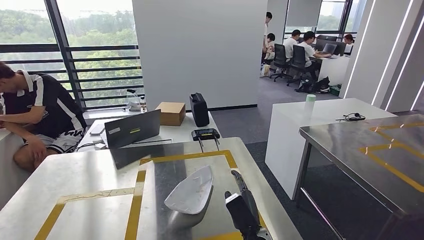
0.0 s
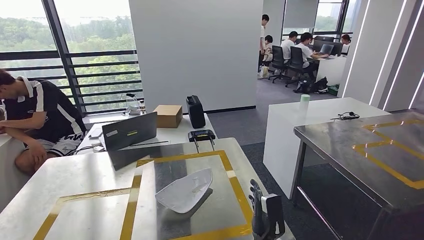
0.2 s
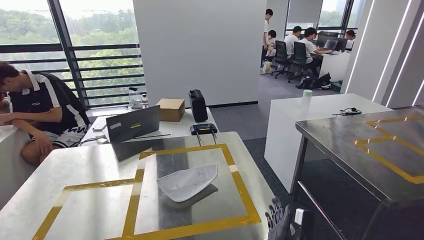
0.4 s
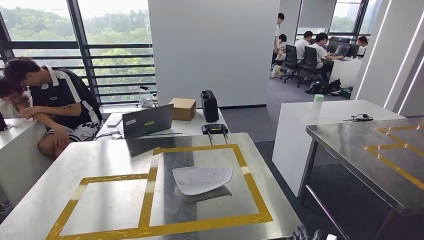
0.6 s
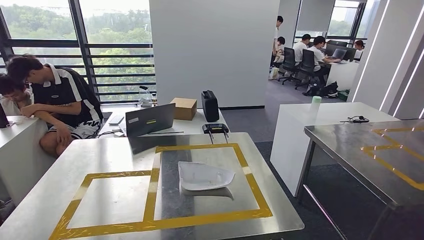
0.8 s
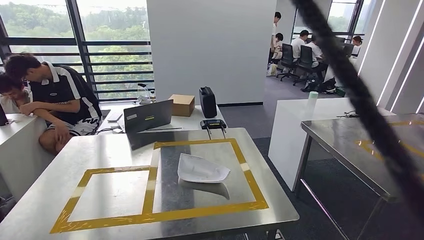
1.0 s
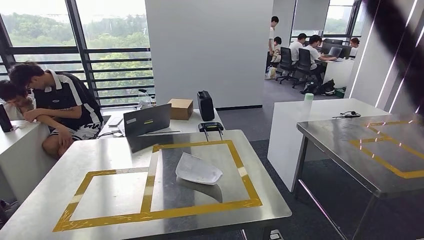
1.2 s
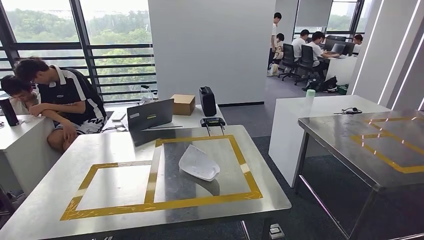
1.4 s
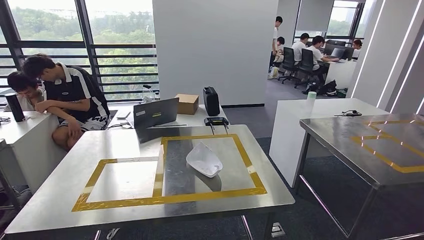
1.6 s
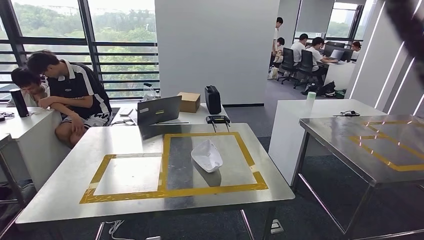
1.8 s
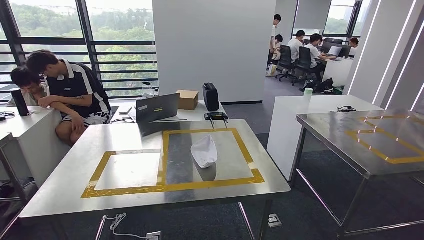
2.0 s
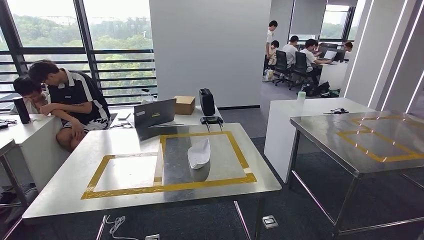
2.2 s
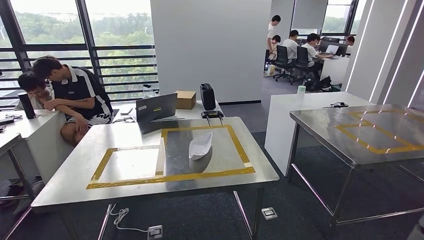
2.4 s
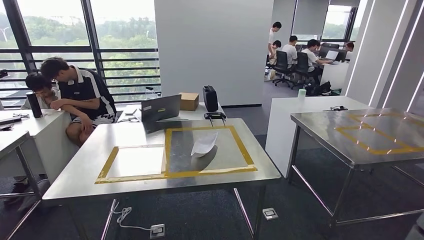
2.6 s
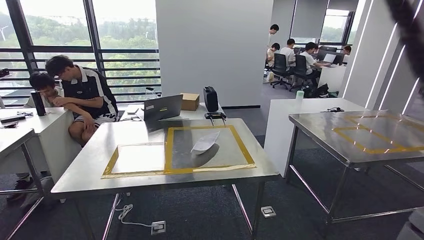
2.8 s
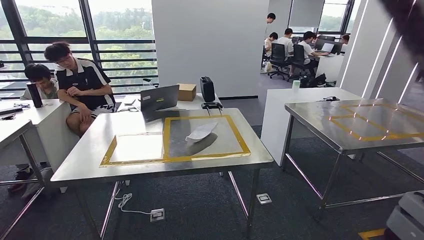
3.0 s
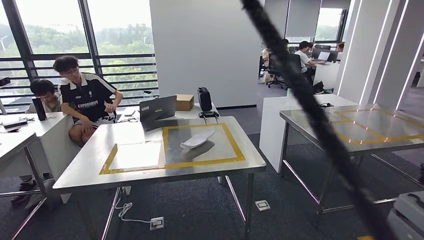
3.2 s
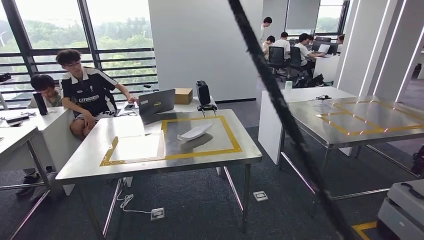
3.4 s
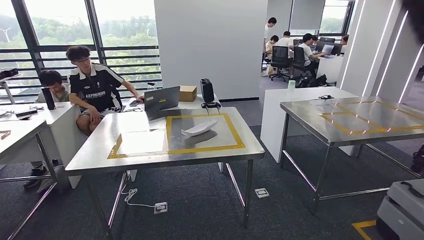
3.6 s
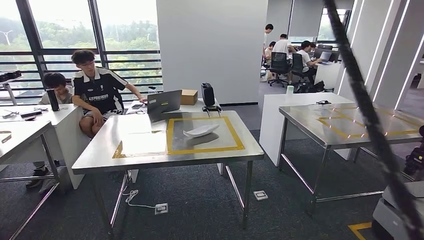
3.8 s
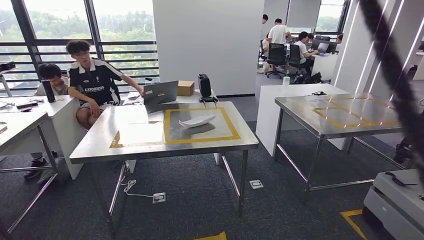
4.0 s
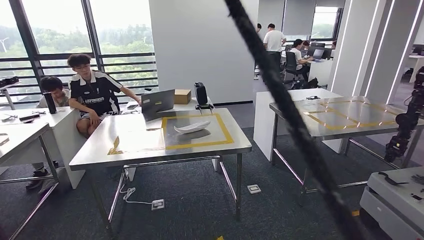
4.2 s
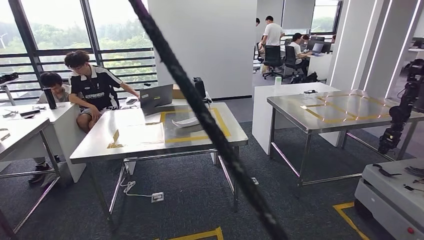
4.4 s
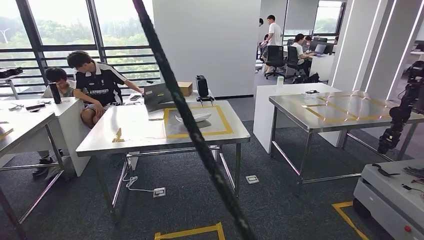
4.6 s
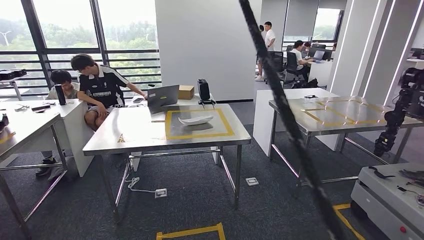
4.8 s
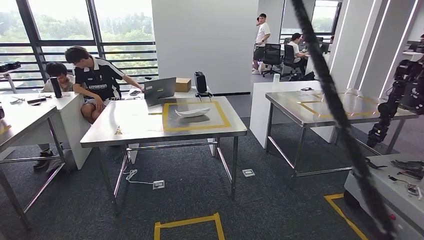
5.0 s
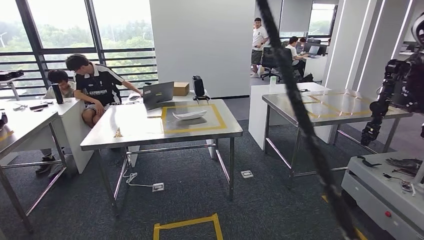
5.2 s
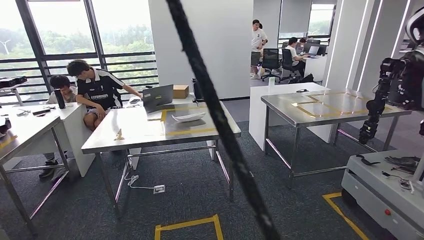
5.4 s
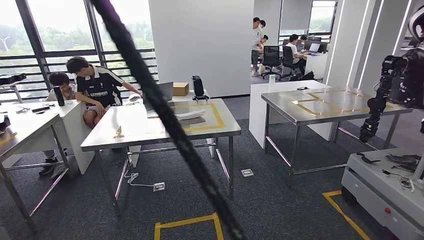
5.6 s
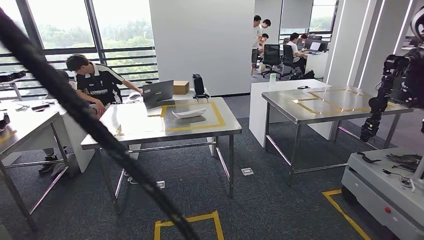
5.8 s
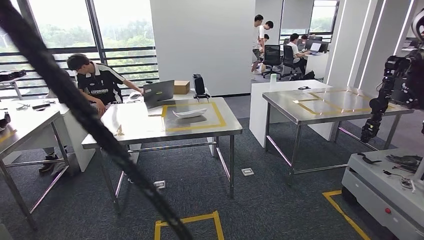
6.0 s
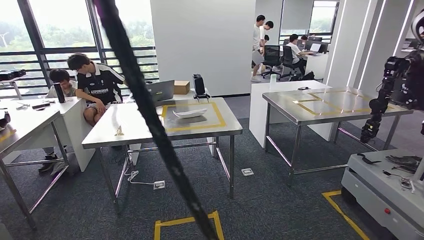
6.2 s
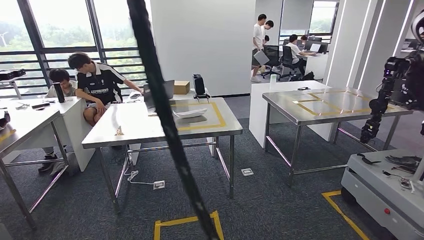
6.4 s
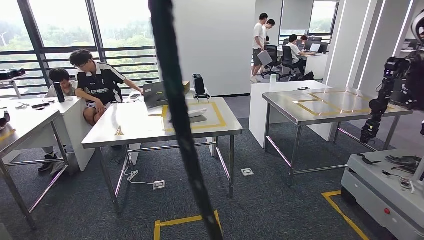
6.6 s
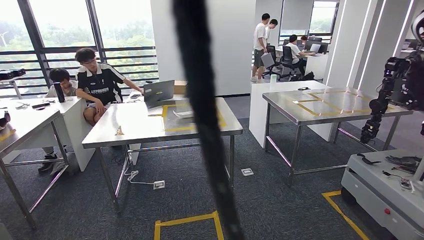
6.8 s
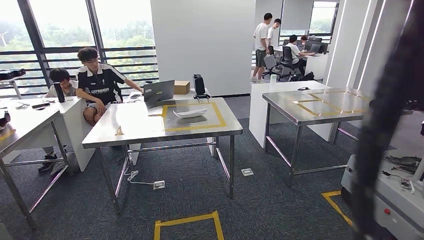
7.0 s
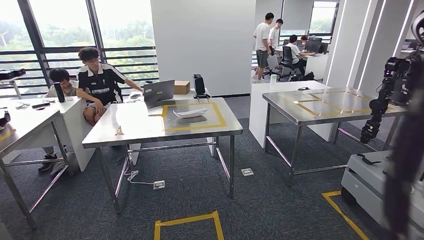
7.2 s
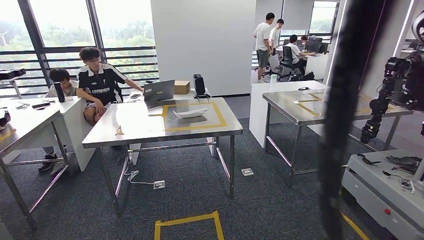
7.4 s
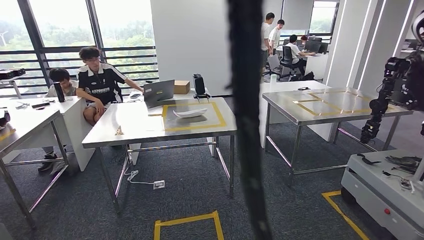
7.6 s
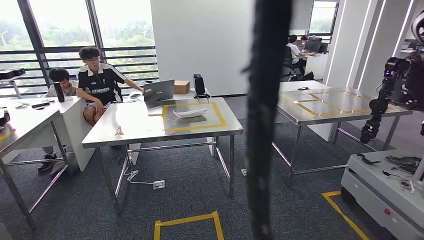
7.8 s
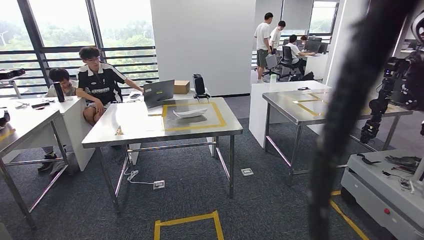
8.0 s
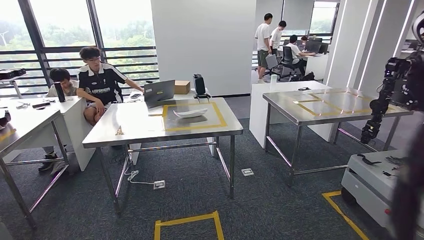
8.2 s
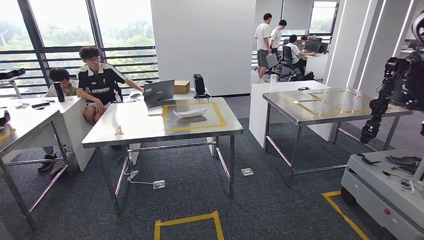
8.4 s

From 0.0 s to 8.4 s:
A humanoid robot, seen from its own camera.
Step, from 1.8 s to 8.4 s: Return to the initial position at the workbench.
From 7.0 s to 8.4 s: The hands move only a little.
